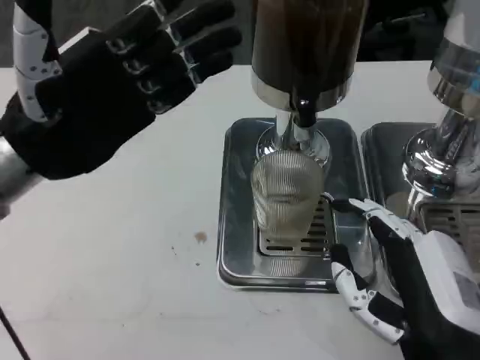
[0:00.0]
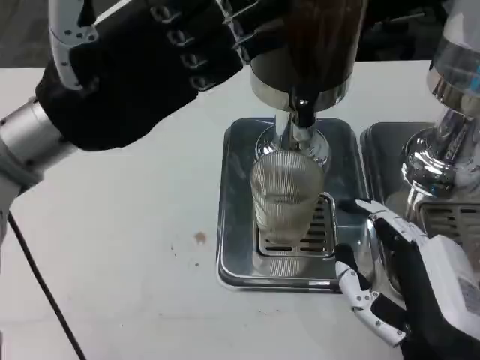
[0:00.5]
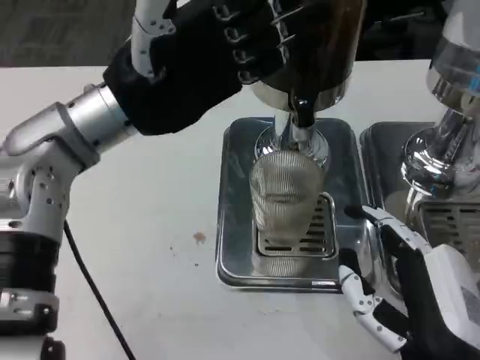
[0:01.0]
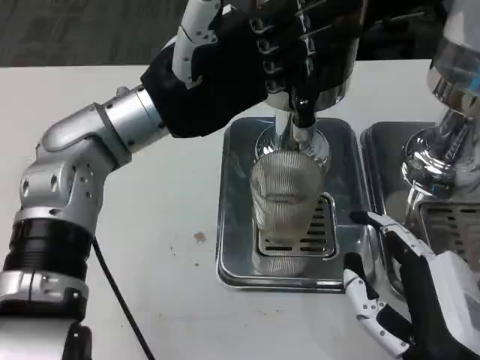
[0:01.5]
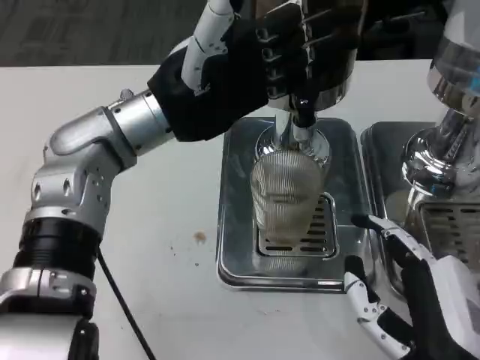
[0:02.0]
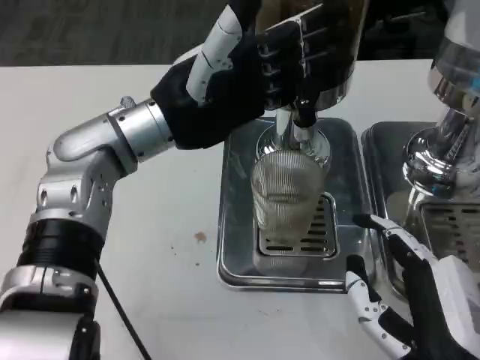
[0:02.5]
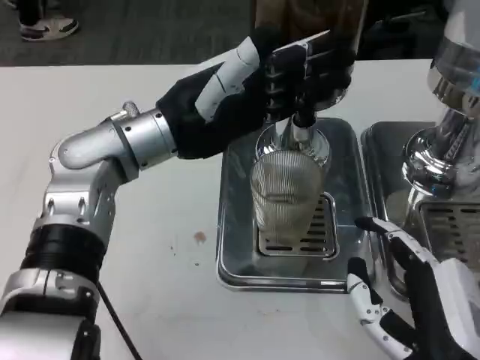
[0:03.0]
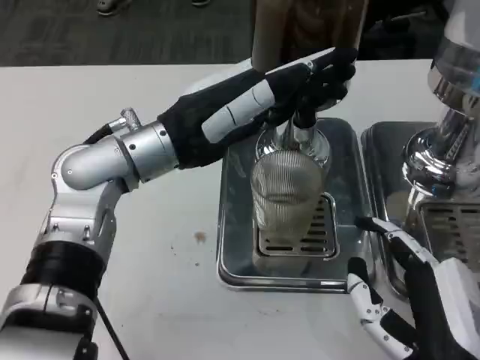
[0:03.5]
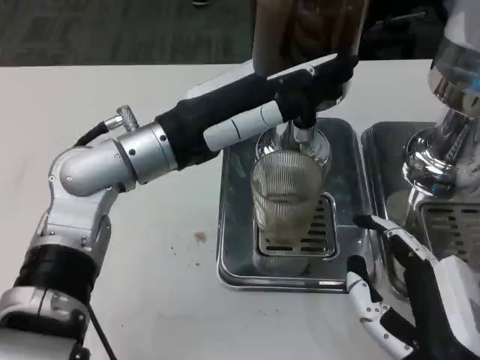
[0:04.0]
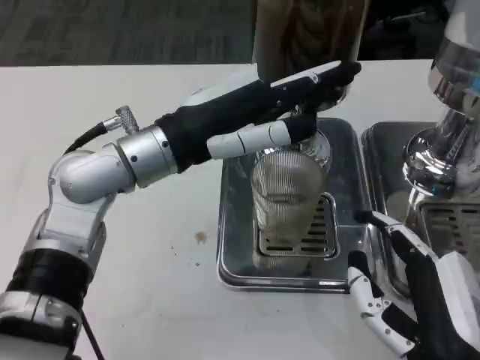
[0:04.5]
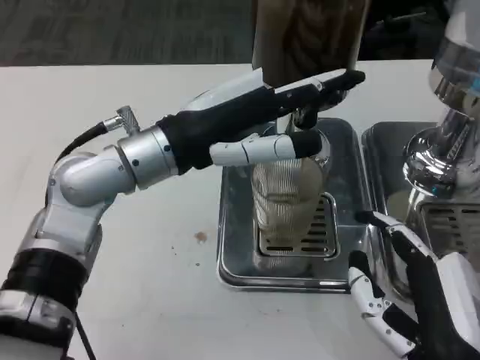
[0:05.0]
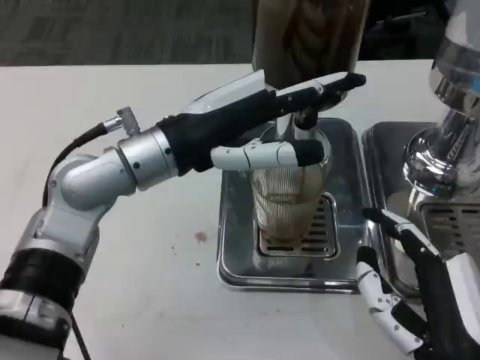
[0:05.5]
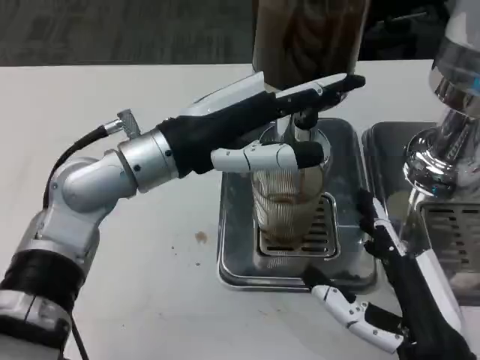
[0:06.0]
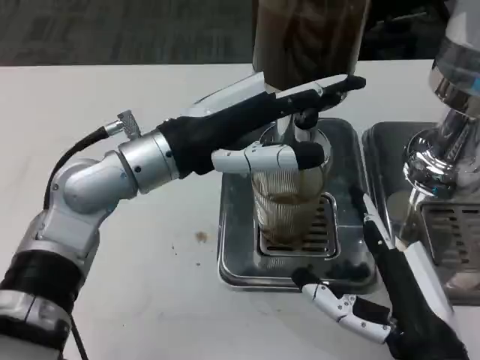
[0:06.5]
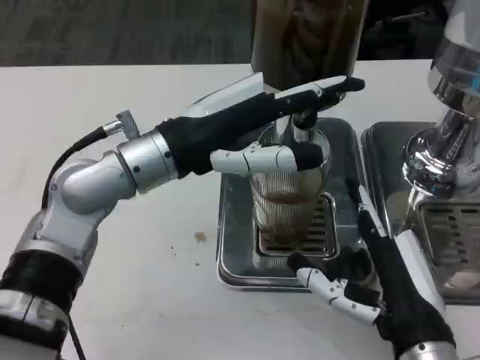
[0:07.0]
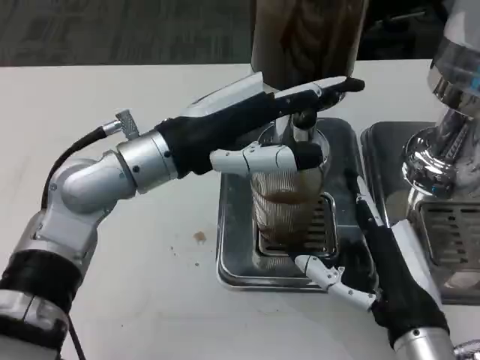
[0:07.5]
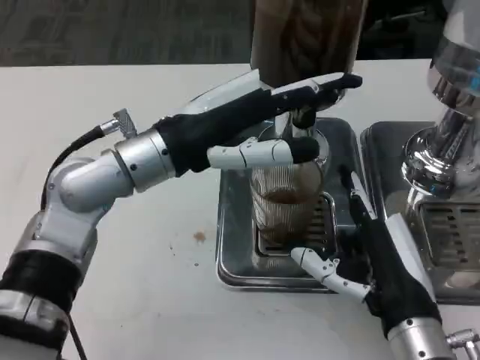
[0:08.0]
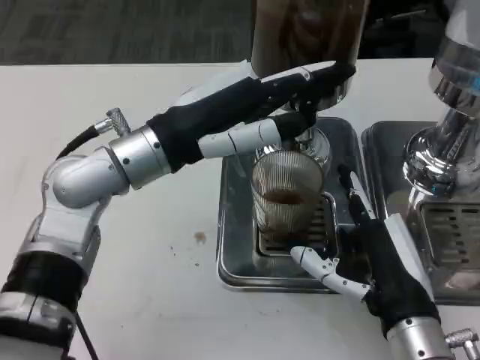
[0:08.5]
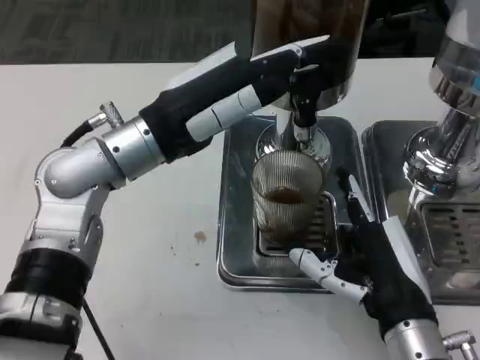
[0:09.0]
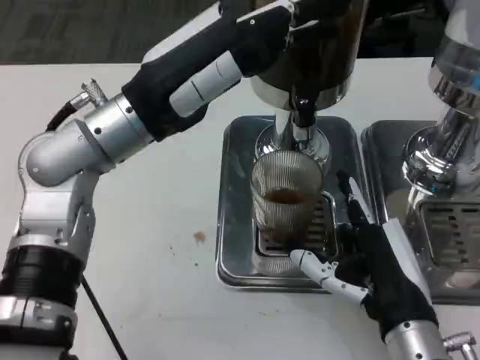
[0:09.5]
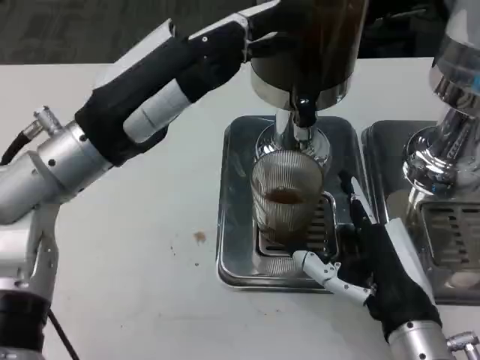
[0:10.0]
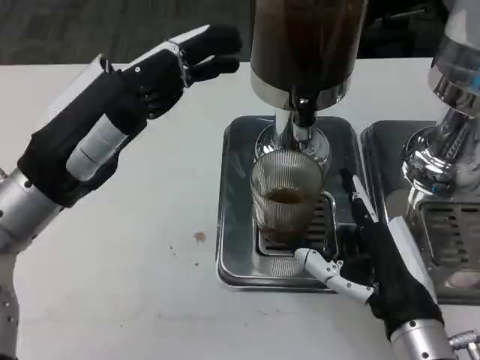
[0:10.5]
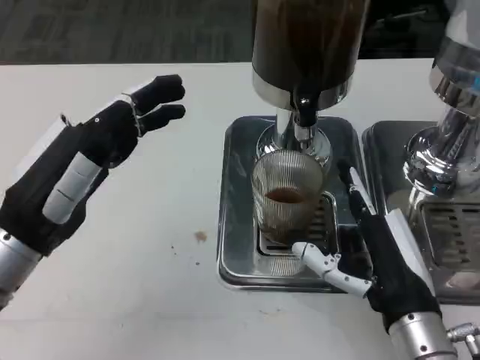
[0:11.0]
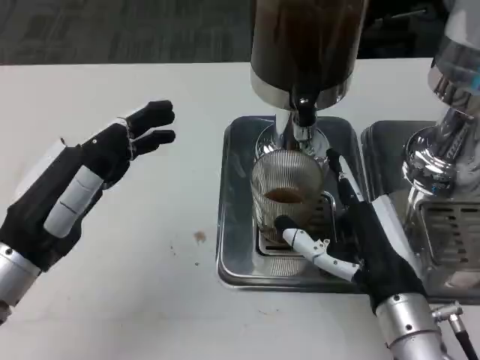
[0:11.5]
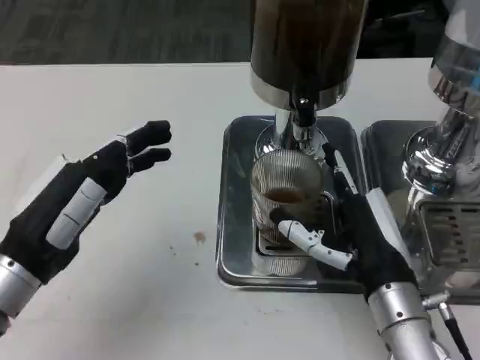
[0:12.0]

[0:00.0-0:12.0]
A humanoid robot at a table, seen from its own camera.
Task of the whole recording: Grasp the cup under the faucet to collect the drink, then remove the cup.
0:00.0 to 0:02.0: The left hand is displaced to the right and forward by approximately 10 cm.
0:06.0 to 0:08.0: The right hand moves forward, some 5 cm.
0:08.0 to 0:10.0: The left hand ends up approximately 5 cm from where it was.
0:10.0 to 0:12.0: The left hand heads downward, backward and to the left, covering approximately 15 cm.

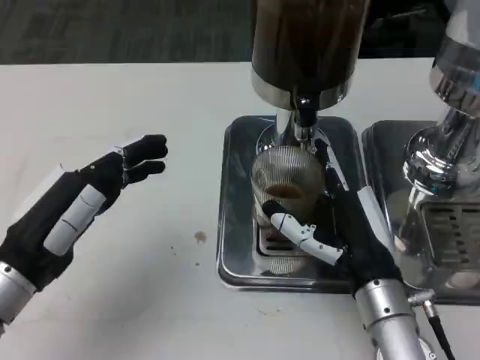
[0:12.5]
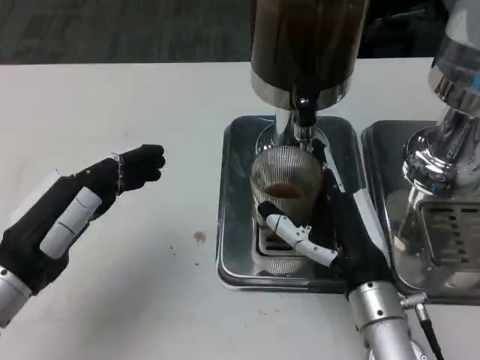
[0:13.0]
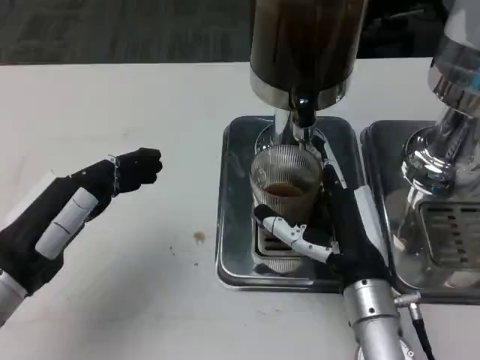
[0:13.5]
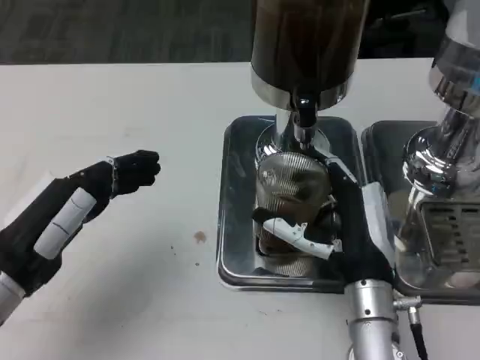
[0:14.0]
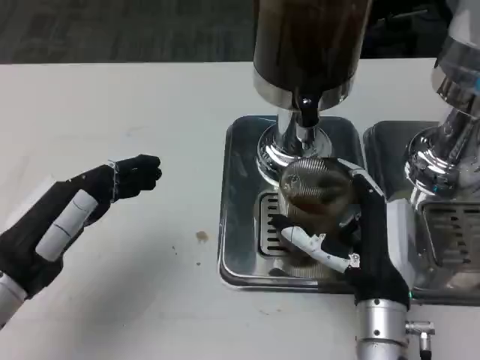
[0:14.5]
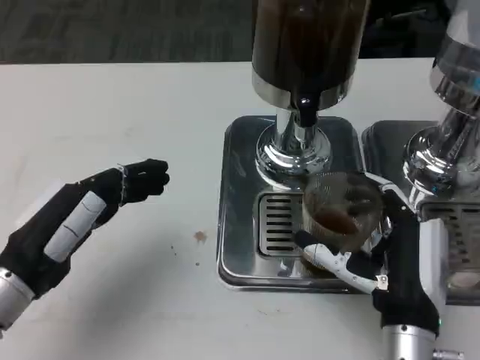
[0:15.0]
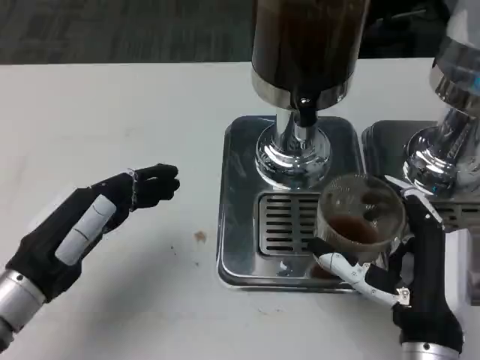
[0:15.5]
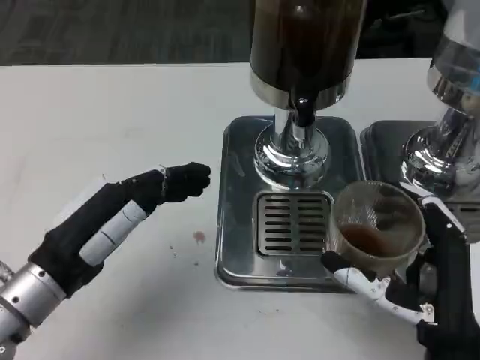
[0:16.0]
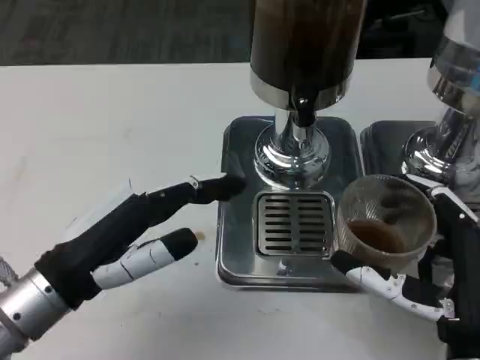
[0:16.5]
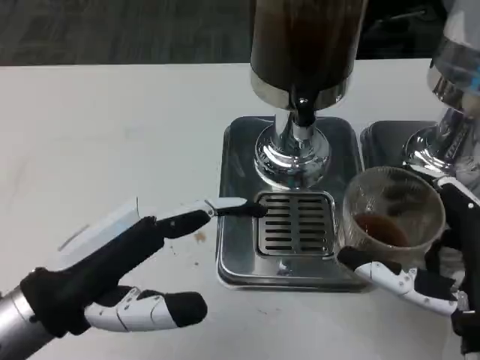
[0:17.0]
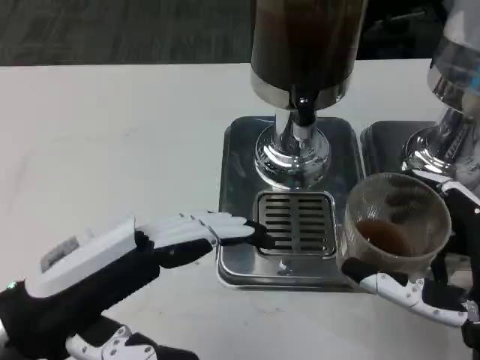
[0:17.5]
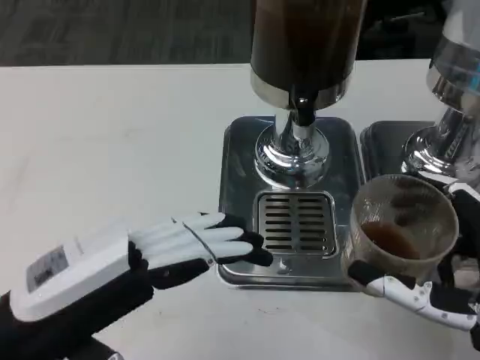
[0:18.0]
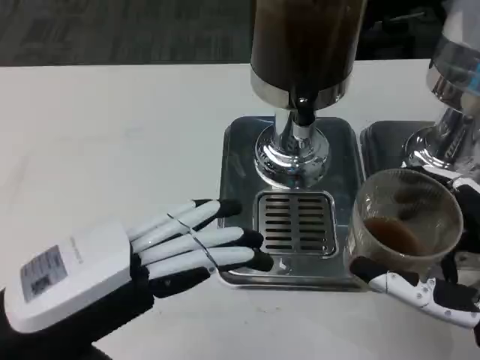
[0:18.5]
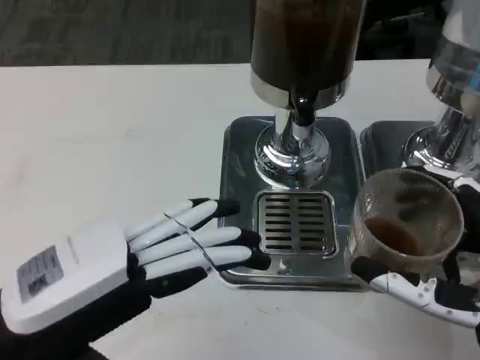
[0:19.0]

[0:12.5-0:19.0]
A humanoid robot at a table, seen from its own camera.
Task of the whole recording: Grasp the cup under the faucet to collect the drink, then remove the cup.
0:14.5 to 0:17.0: The left hand ends up approximately 5 cm from where it was; the right hand goes some 10 cm backward, to the right and upward.
0:17.0 to 0:19.0: The left hand shifts by some 5 cm.

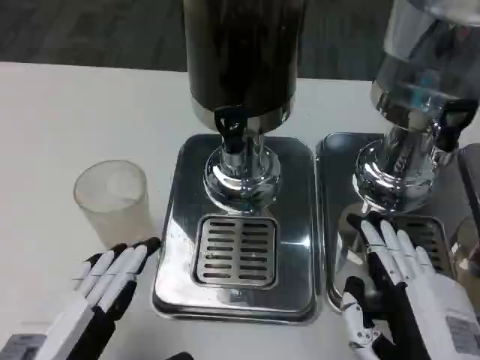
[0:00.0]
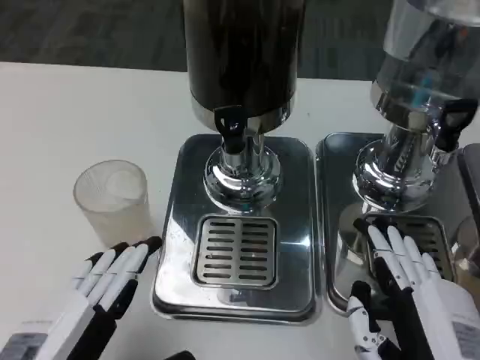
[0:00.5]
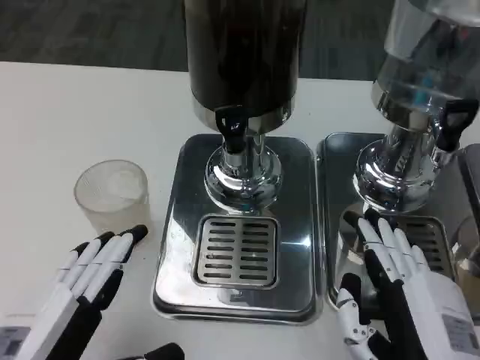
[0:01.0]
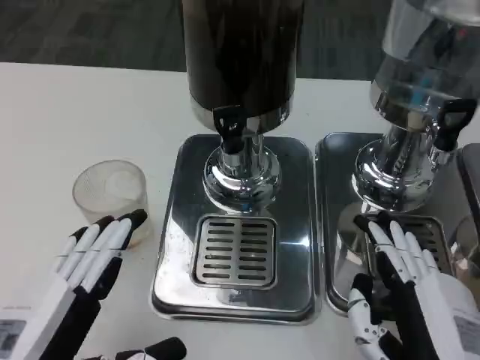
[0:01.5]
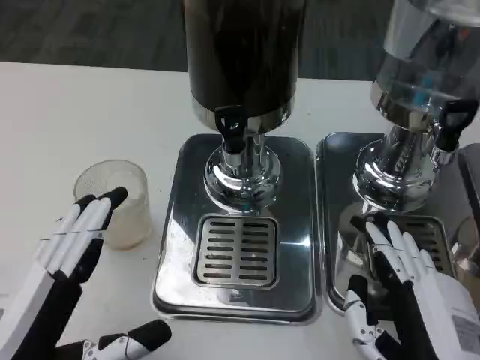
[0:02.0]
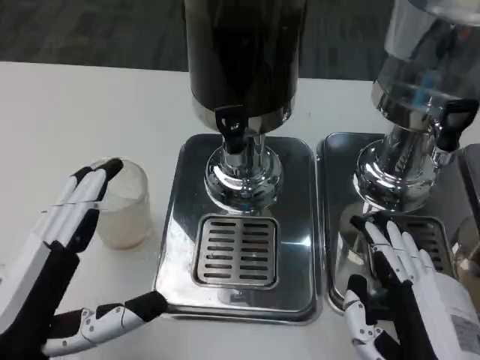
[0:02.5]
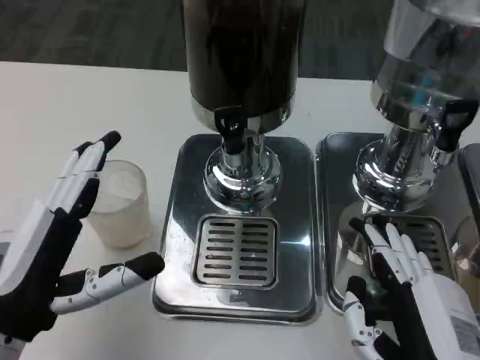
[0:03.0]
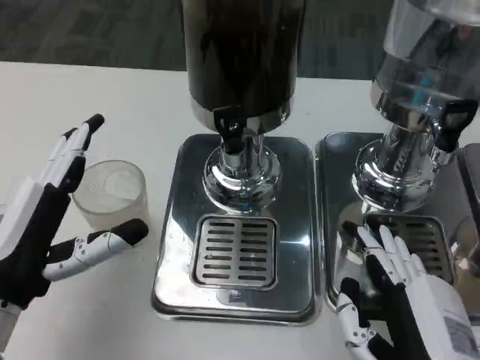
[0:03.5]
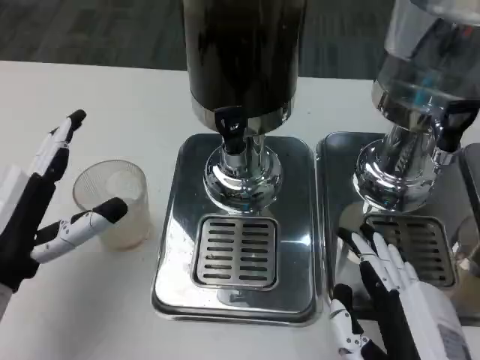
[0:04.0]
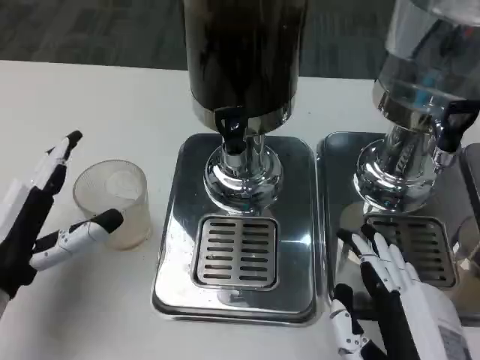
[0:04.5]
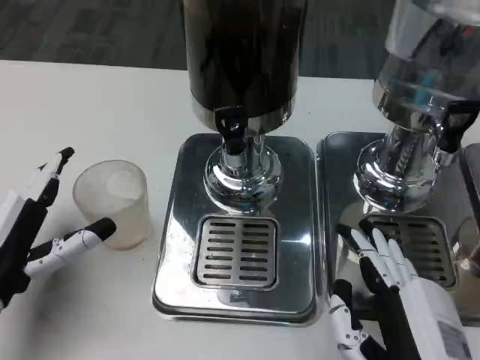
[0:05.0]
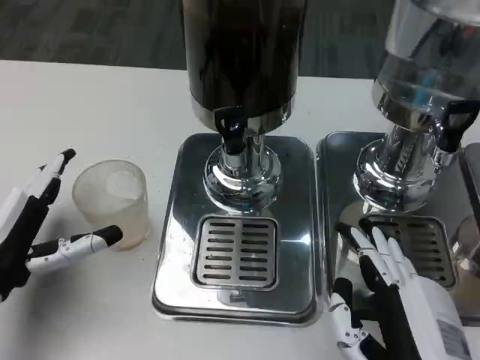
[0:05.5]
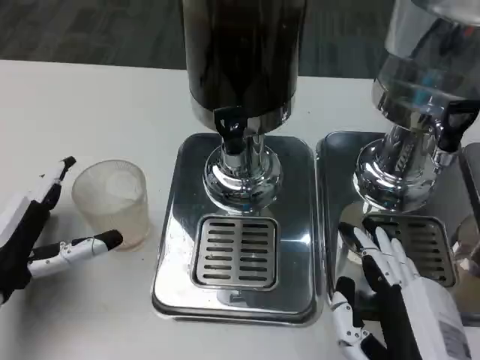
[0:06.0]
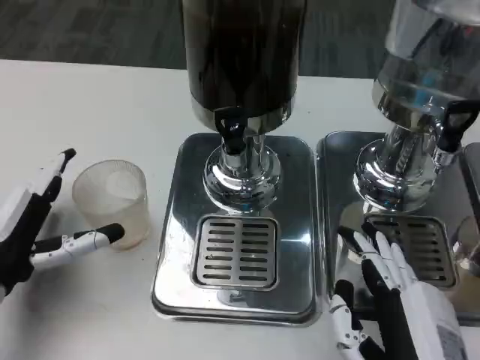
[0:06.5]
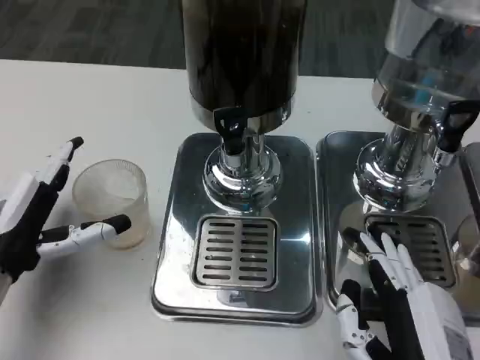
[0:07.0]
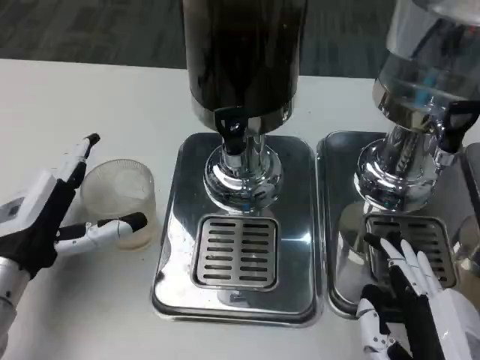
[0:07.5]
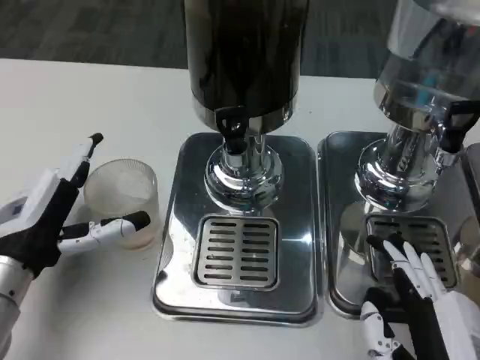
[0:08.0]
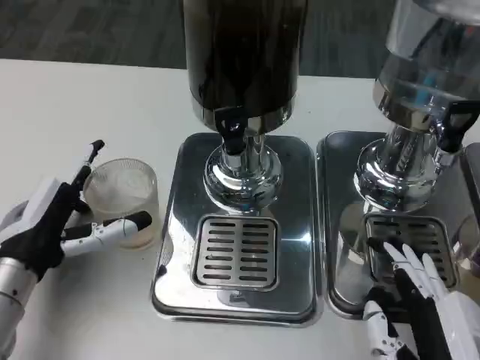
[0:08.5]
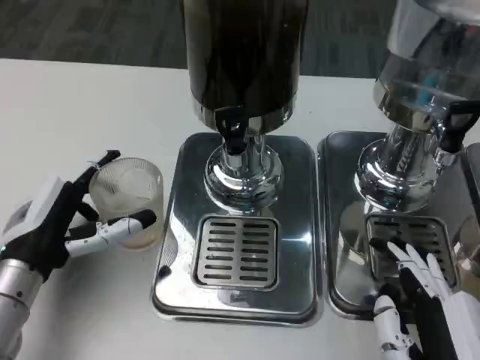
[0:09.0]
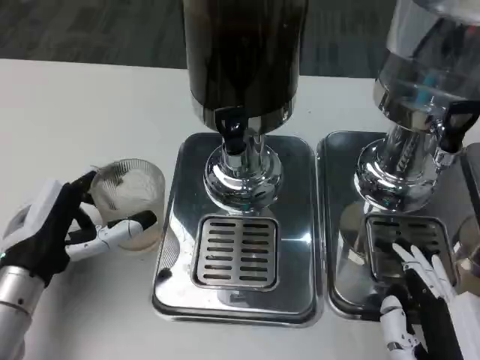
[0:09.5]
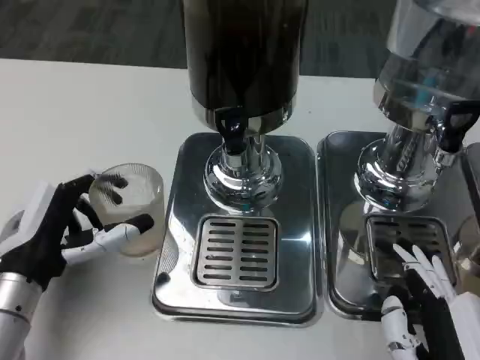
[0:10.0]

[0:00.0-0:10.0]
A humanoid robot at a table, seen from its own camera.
Task of the whole recording: Grasp the cup under the faucet to collect the drink, then remove the cup.
0:00.0 to 0:02.0: The hands stay close to where they were, moving slightly.
0:02.0 to 0:04.0: The left hand heads forward, covering about 10 cm.
0:04.0 to 0:06.0: There are only small adjustments of the hands.
0:08.0 to 0:10.0: The hands make only small movements.
